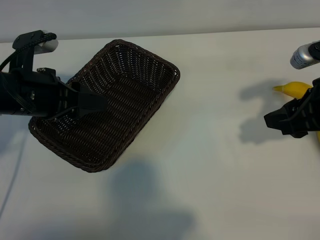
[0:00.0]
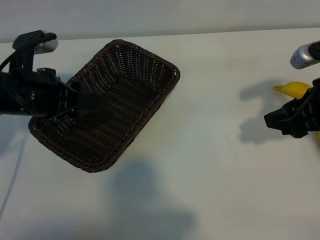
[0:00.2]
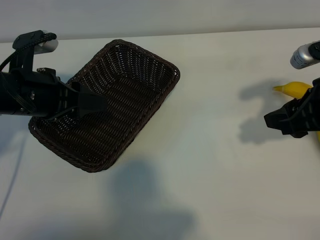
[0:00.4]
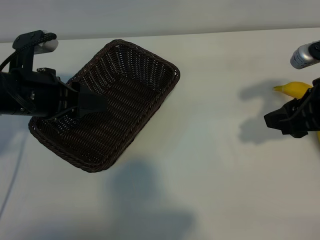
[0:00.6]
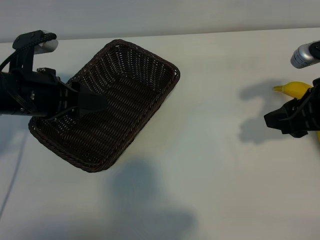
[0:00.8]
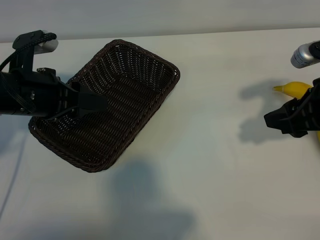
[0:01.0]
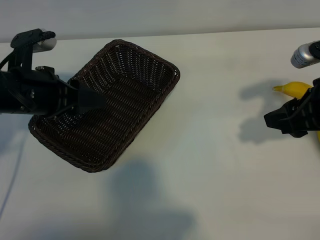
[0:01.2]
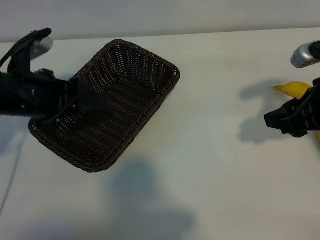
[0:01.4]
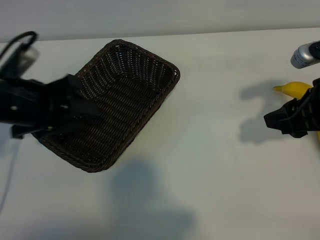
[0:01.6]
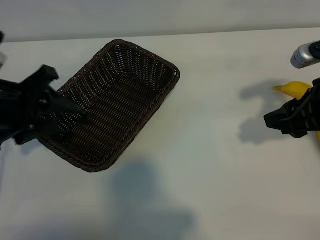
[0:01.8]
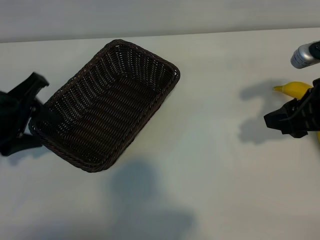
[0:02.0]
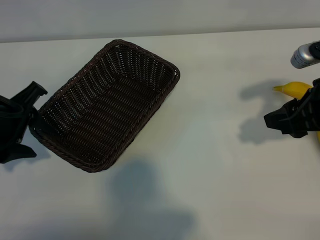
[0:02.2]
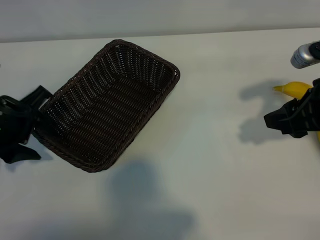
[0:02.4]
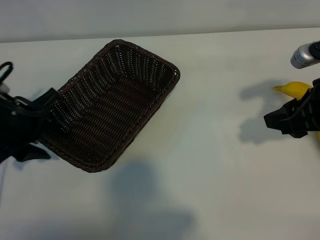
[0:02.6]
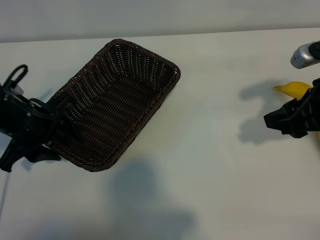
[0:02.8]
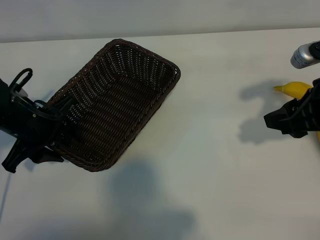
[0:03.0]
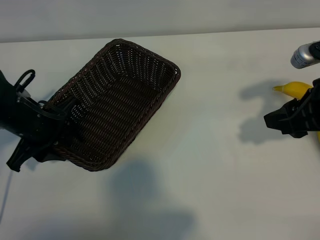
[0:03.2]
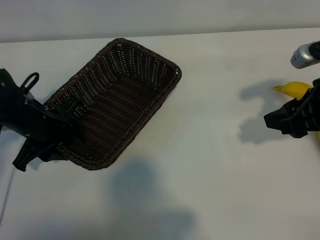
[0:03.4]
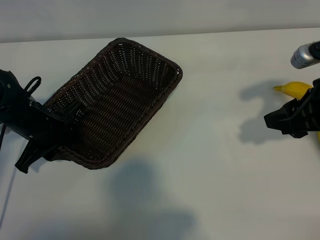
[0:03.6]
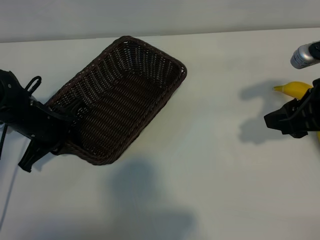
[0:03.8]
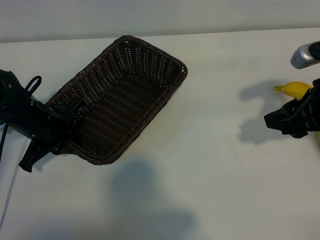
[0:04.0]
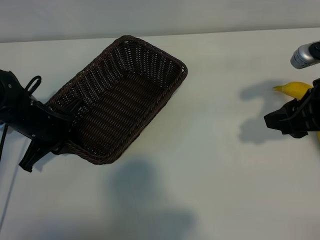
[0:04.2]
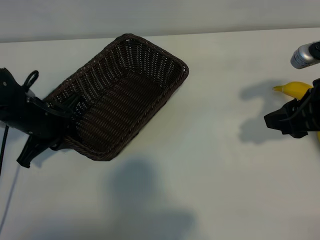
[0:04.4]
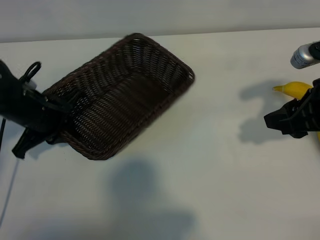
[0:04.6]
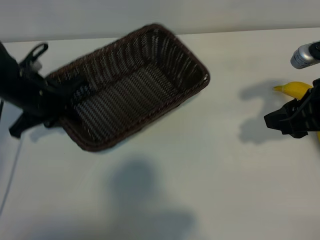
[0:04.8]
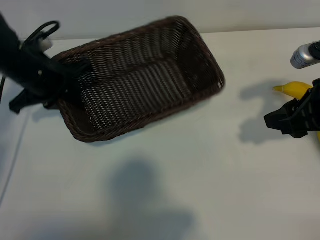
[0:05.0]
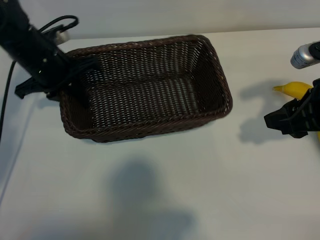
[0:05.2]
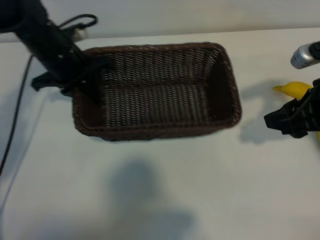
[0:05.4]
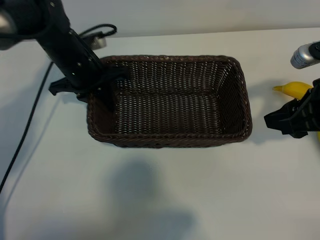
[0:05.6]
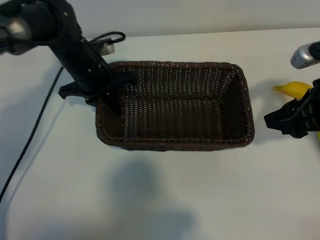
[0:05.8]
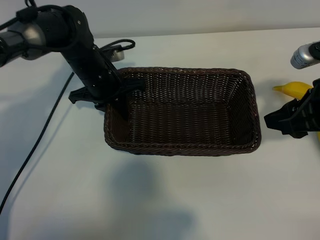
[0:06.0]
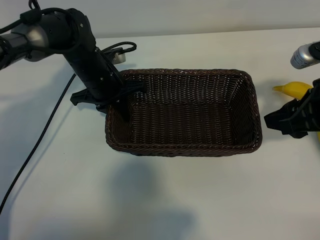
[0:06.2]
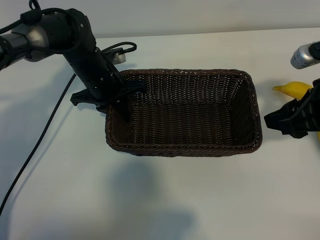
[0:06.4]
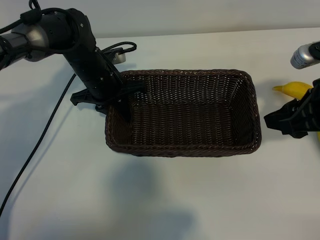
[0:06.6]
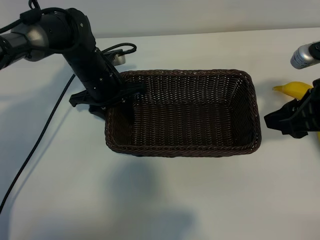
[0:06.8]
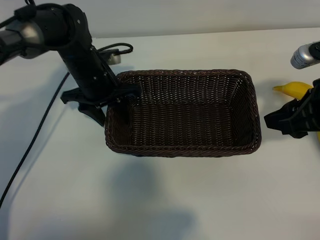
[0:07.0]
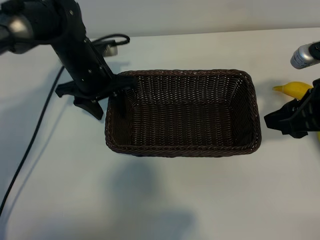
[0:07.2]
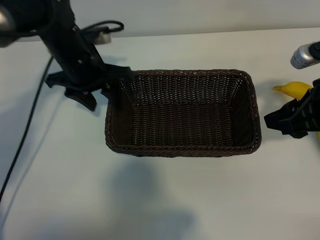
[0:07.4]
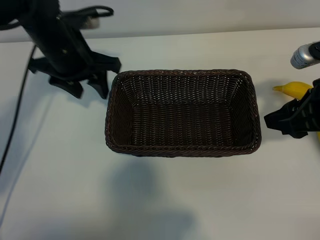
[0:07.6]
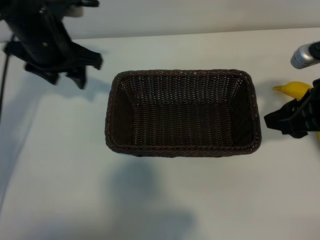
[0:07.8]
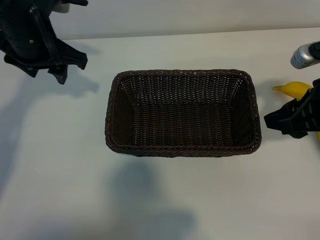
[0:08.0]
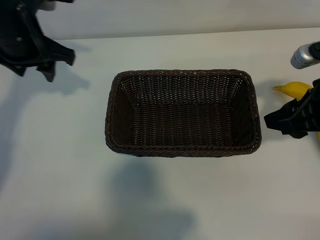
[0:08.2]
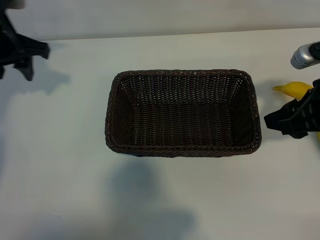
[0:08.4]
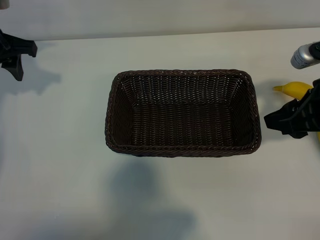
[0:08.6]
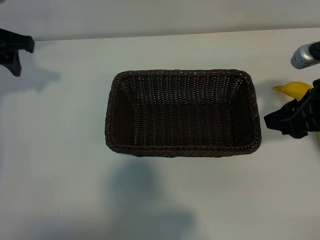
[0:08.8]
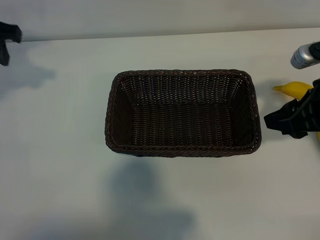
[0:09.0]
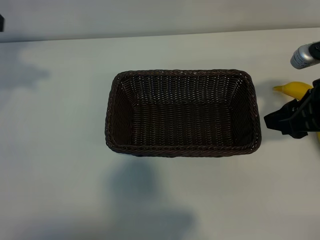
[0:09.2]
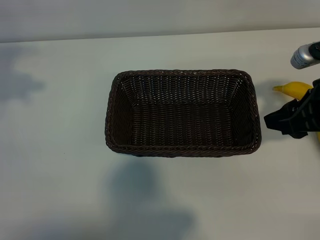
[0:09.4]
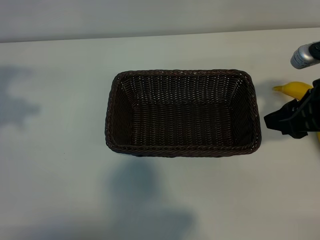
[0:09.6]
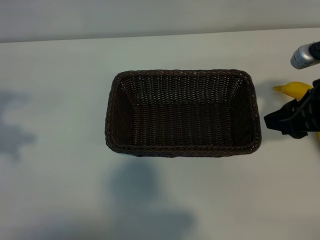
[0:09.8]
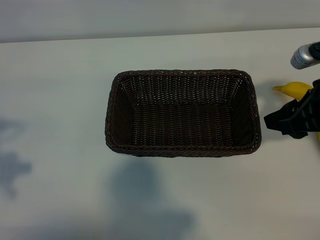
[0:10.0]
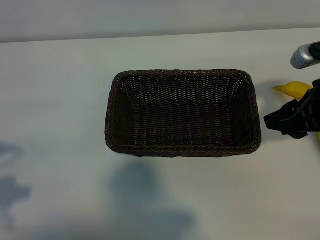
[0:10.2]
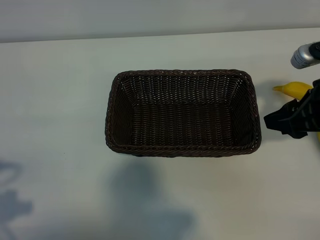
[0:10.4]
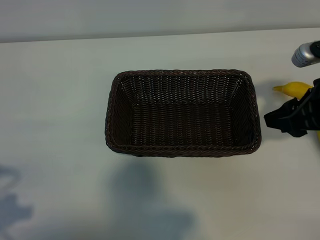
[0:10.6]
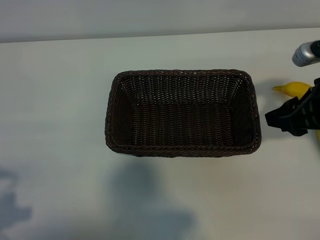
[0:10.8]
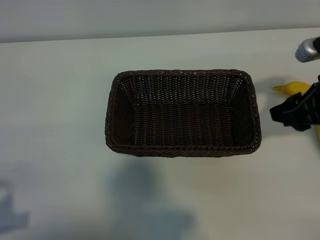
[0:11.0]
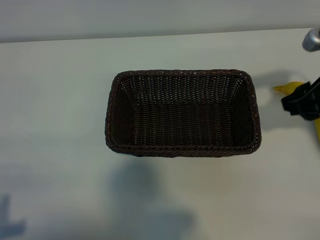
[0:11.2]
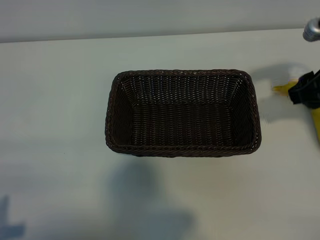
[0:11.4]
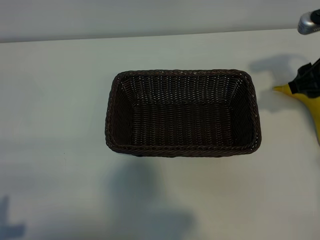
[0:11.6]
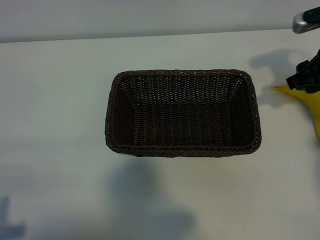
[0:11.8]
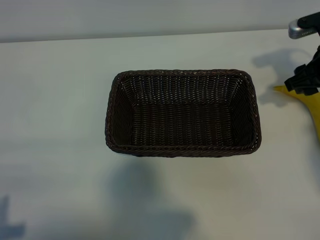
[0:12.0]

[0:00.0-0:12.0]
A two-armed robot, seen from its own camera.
Task of the whole recording: pick up the banana and put it into the basket.
Step, 0:01.2 to 0:03.6: Grasp the basket with the left gripper.
Step, 0:03.8 to 0:06.8: Place the basket in the center of the table with the left gripper.

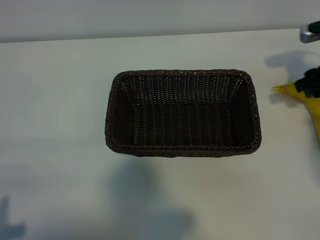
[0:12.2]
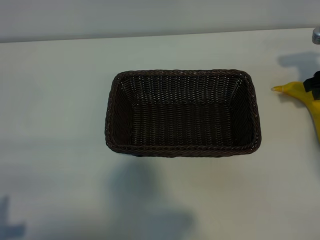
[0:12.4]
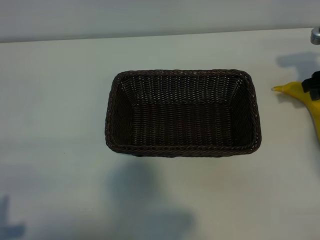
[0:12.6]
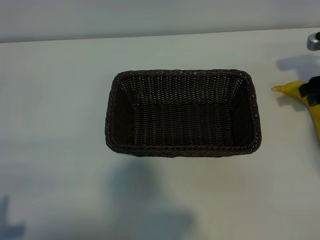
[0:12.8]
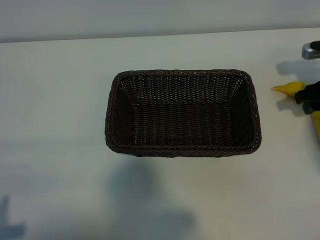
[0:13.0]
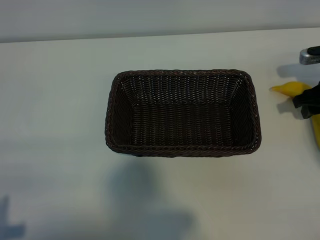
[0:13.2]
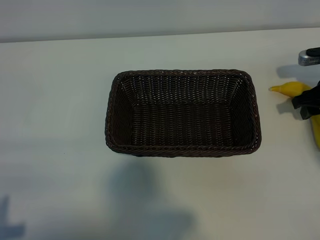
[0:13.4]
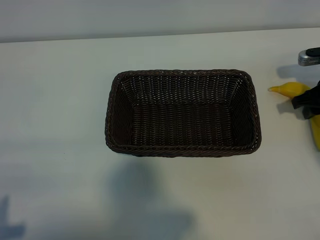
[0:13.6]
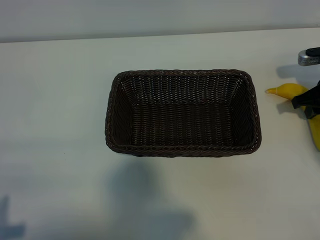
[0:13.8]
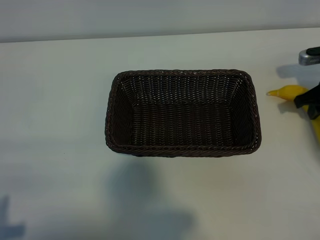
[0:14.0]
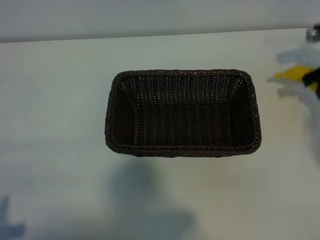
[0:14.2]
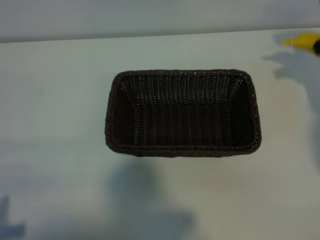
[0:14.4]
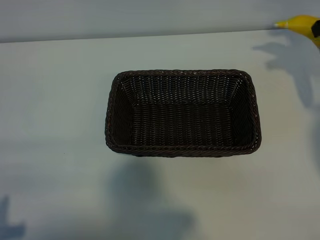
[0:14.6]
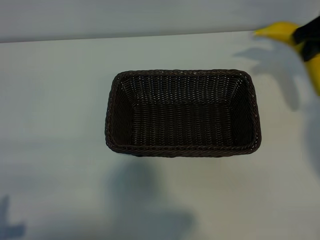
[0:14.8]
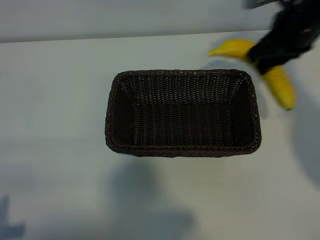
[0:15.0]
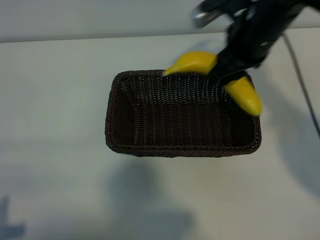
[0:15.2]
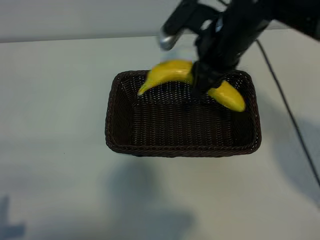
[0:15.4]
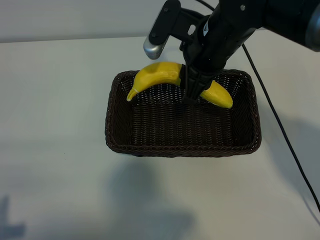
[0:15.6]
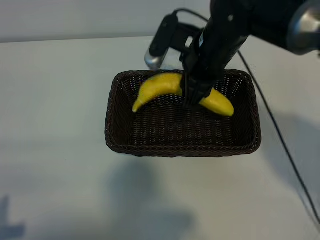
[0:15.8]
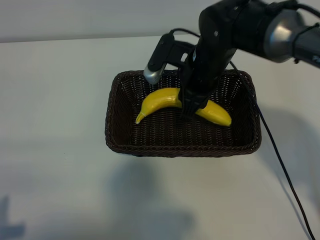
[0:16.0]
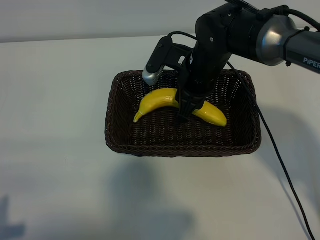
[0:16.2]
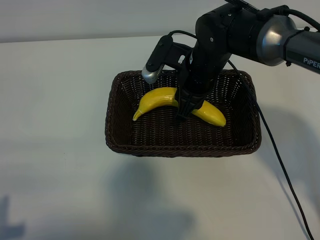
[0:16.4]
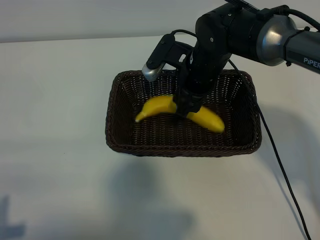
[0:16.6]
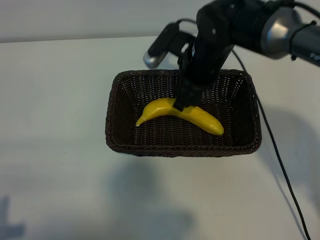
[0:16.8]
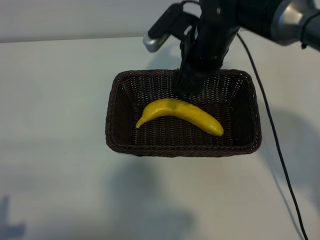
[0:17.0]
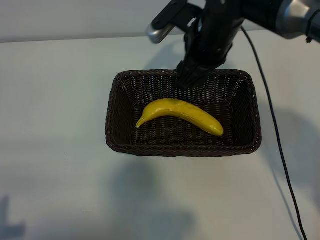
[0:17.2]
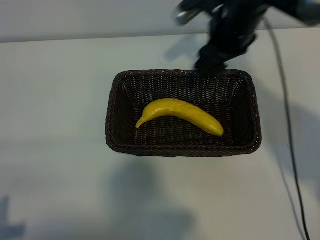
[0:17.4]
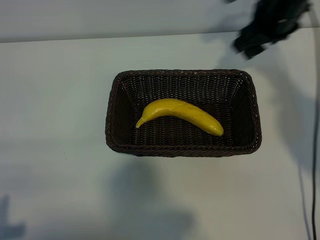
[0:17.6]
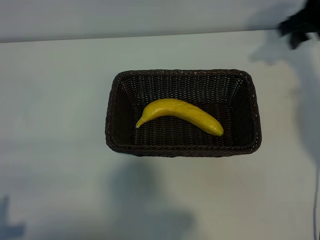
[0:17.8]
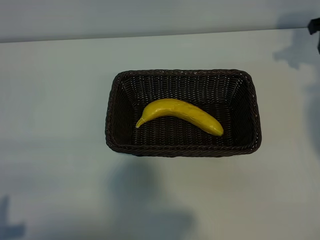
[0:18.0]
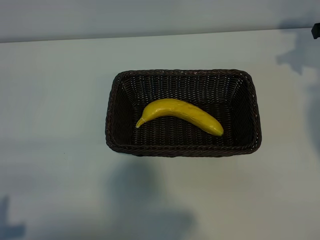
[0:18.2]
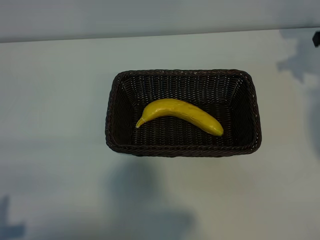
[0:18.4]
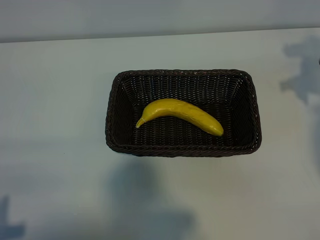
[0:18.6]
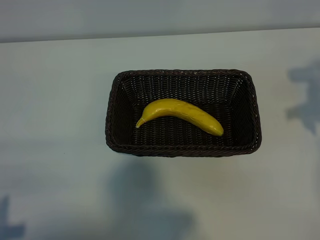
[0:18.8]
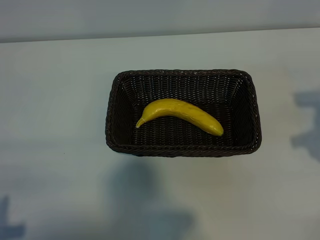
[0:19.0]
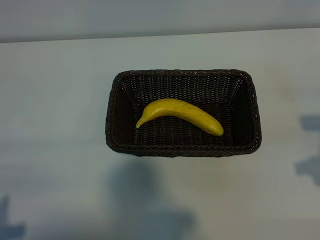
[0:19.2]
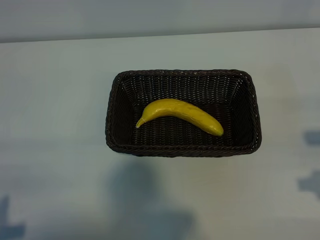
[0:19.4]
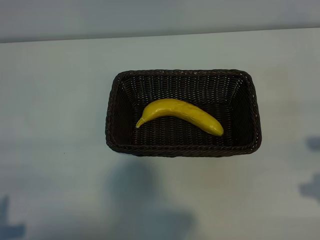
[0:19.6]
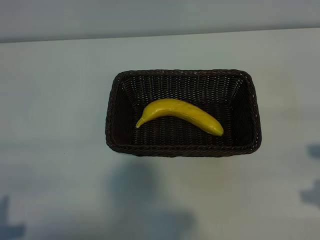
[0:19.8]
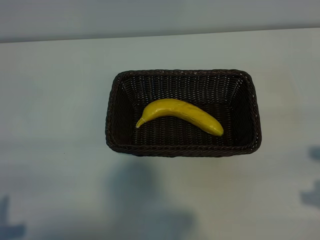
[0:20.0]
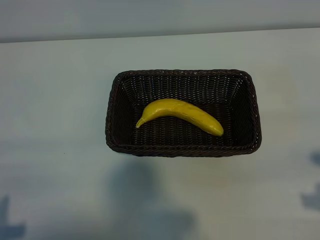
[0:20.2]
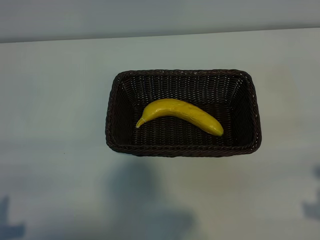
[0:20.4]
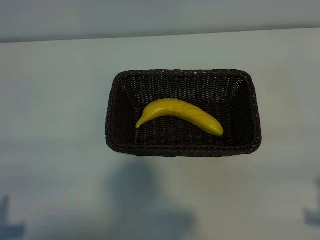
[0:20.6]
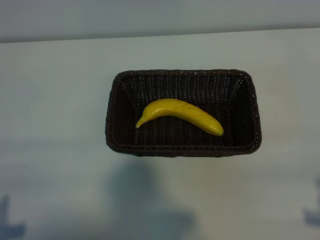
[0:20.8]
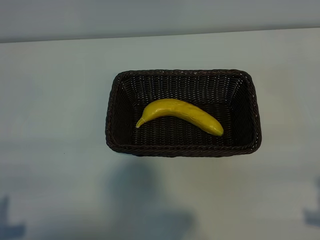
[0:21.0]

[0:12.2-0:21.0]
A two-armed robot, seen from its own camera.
Task of the whole recording: pick up the banana and put it into the basket.
Step, 0:14.2 to 0:16.6: Place the banana in the basket with right gripper.

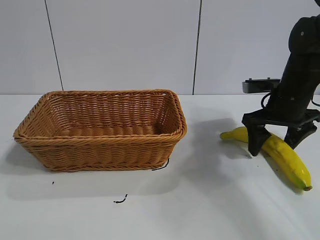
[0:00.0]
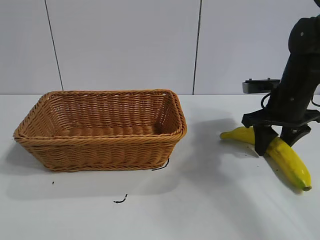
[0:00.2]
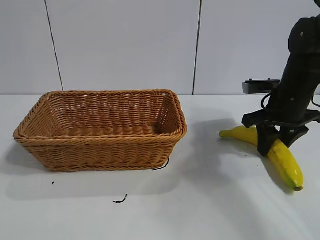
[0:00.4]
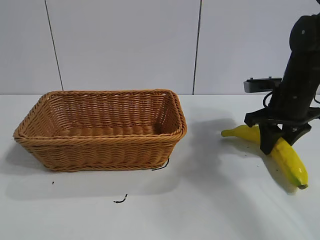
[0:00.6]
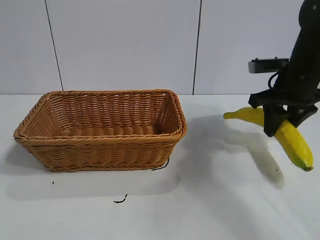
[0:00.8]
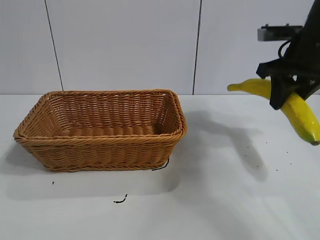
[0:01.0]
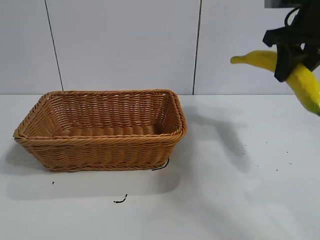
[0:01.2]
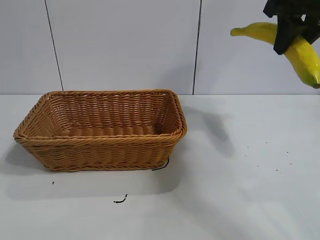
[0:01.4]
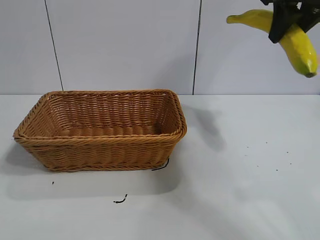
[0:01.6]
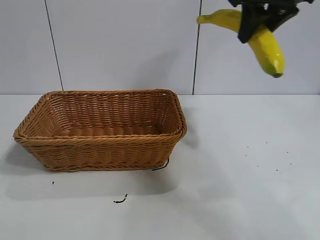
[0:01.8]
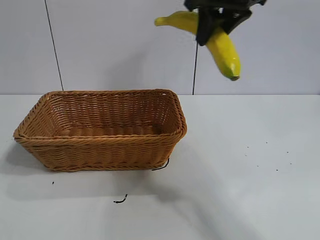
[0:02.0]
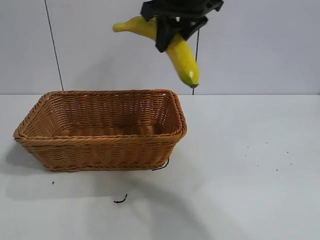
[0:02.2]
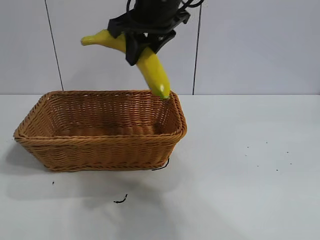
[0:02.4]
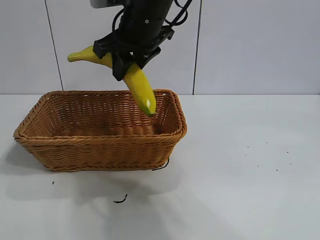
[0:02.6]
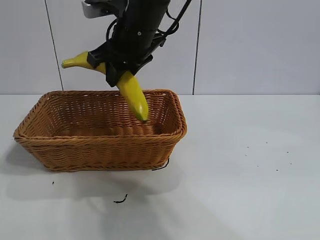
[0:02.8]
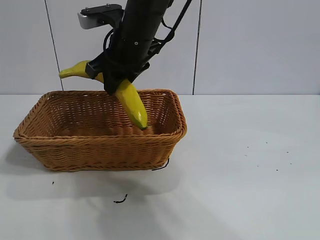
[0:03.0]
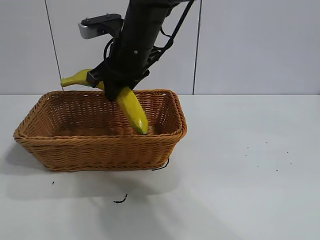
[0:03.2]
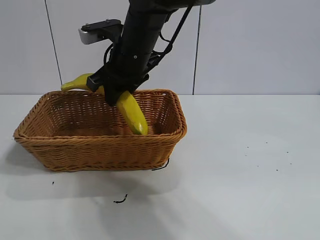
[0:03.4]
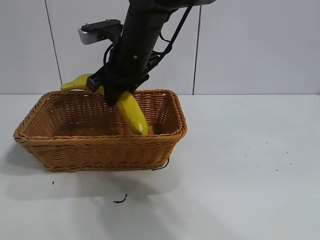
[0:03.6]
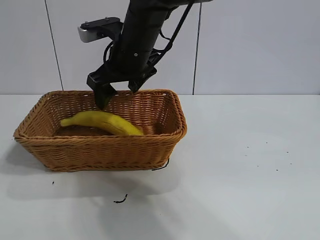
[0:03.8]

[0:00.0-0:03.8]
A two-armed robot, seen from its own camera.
Task of the whole recording: pick up the banana and put it into the basket.
Step, 0:00.8 to 0:03.8: Place the banana in the basket with right gripper.
